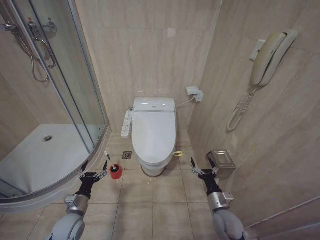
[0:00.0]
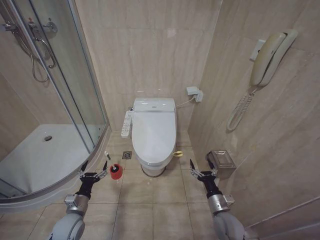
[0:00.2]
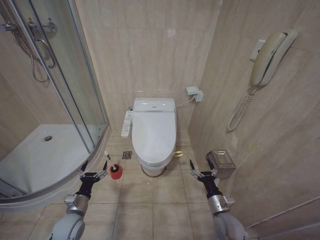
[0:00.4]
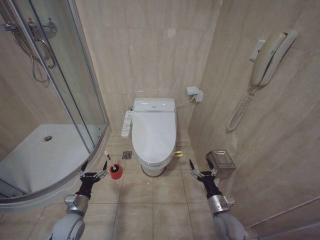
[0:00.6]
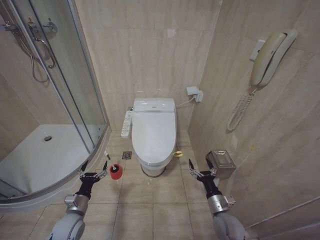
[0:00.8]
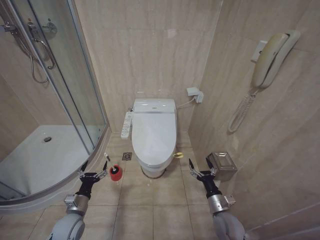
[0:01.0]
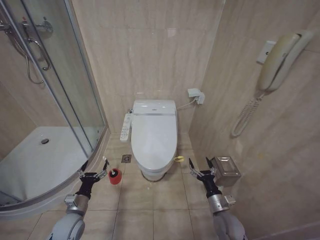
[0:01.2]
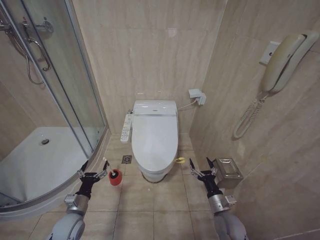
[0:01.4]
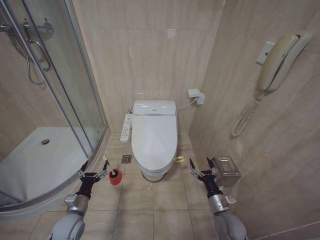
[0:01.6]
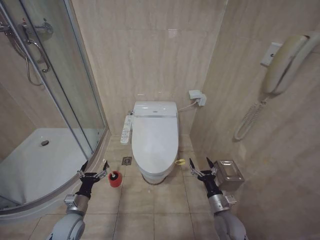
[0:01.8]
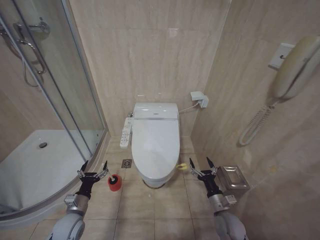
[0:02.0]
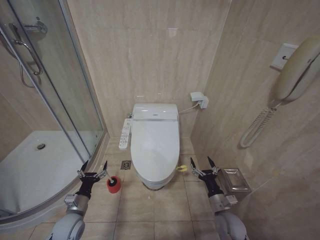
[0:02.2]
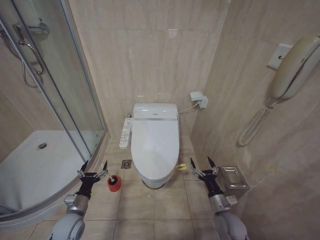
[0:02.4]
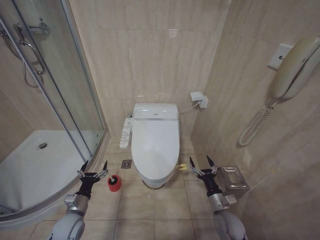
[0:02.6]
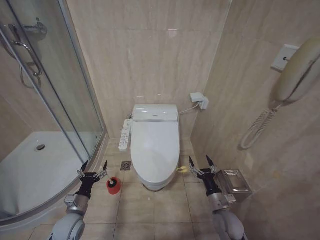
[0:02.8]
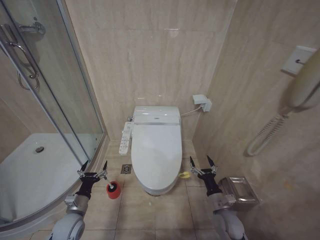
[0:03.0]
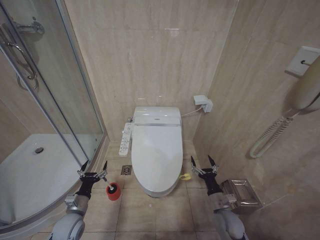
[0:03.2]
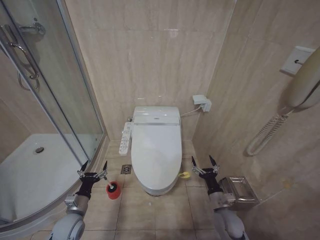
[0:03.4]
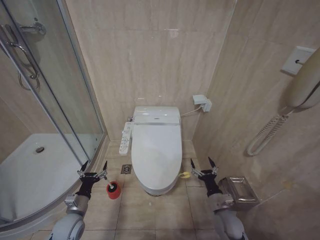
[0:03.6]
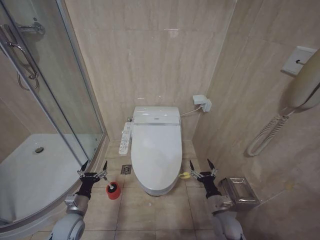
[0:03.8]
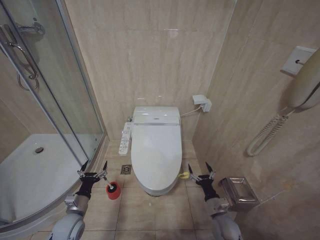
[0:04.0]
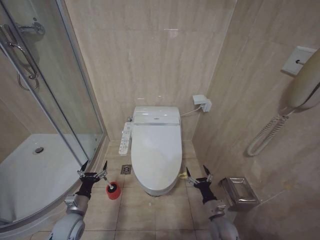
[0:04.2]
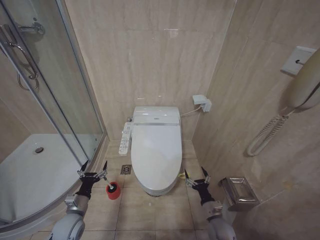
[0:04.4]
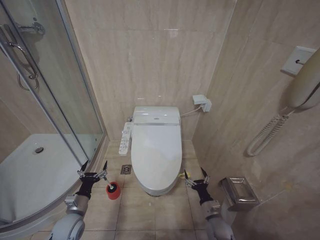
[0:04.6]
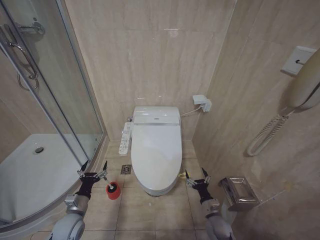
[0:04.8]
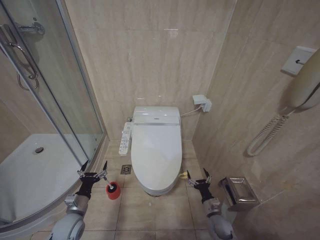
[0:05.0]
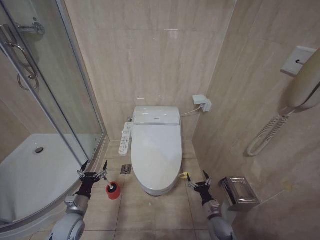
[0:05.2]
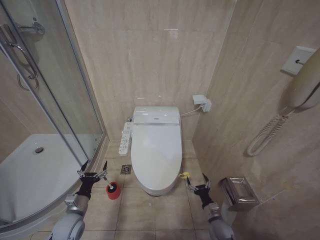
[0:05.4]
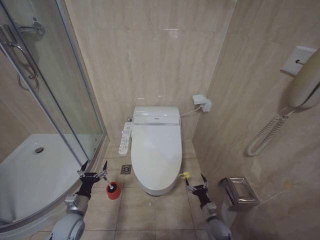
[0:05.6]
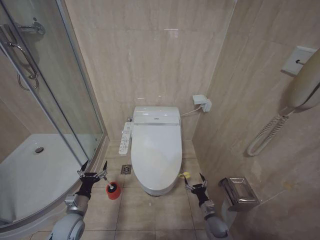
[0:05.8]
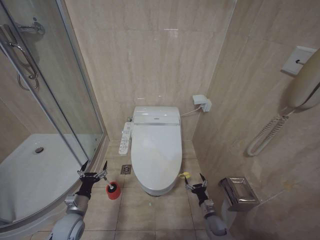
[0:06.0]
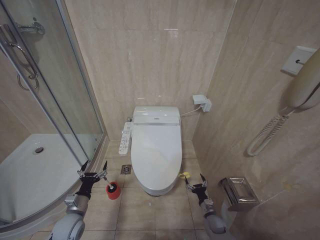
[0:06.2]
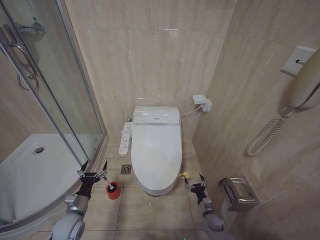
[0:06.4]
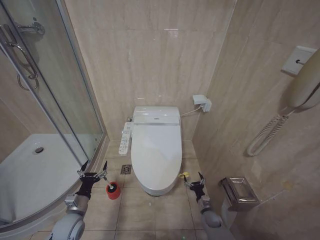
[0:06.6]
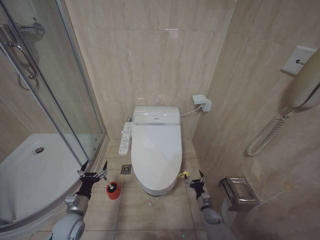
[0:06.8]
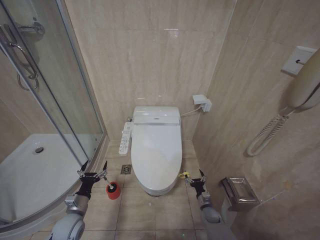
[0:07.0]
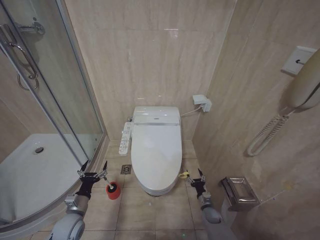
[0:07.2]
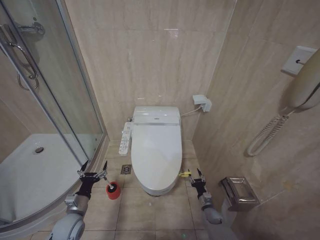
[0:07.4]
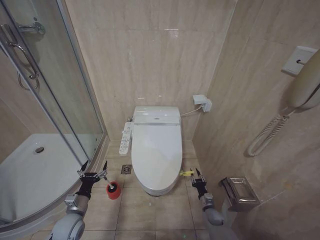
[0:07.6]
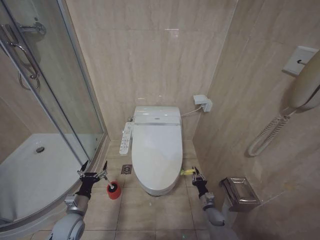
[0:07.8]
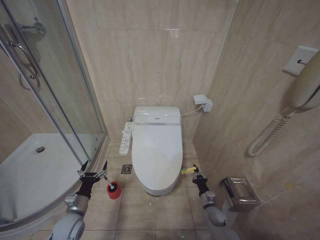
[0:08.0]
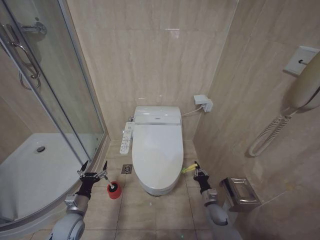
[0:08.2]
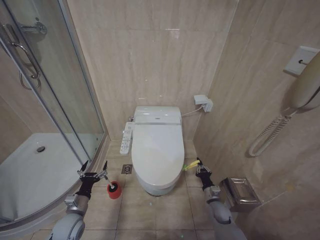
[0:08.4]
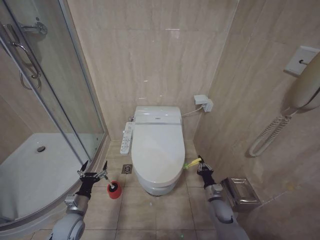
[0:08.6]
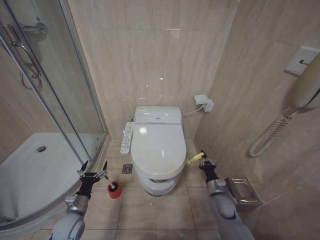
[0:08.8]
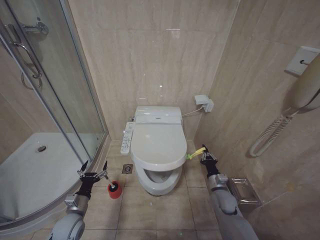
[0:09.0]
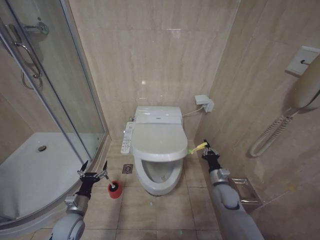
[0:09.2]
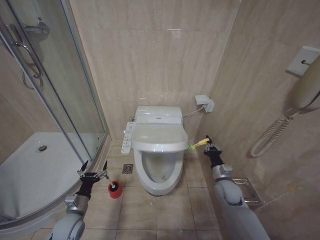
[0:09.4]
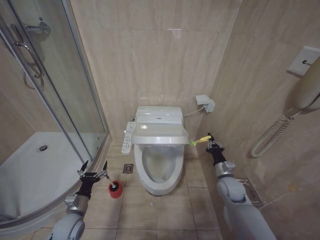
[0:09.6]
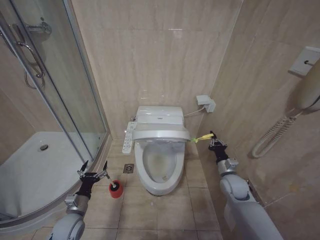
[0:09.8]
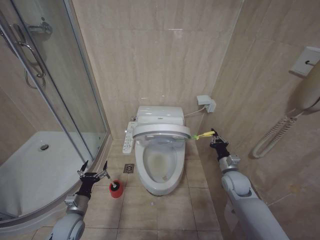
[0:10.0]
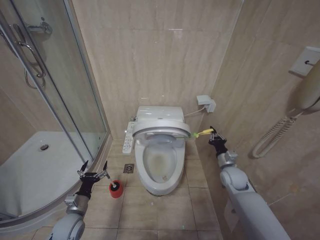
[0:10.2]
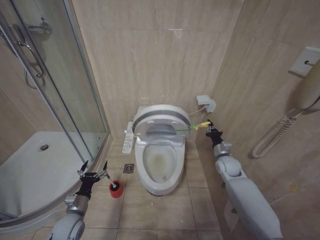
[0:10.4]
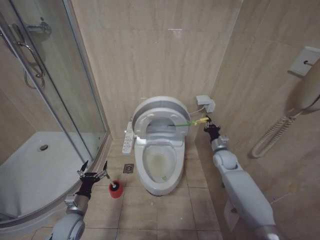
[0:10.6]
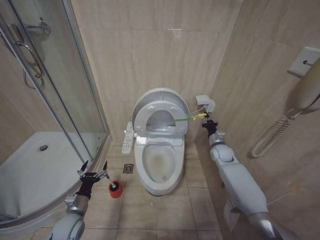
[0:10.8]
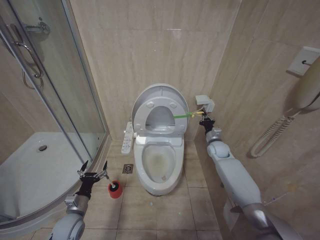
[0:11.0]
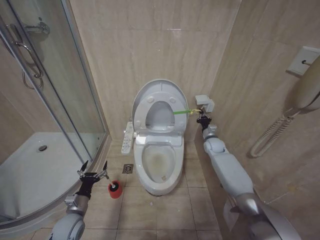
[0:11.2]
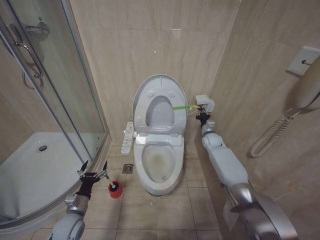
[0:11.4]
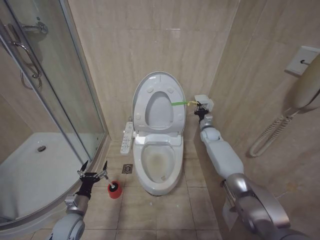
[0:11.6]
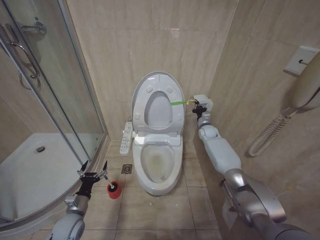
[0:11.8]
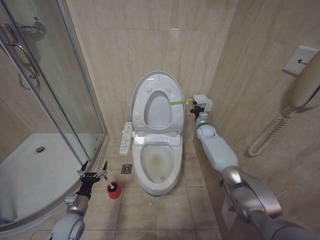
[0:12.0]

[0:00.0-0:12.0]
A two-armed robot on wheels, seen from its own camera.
Task of the whole recording: Open the toilet lid, clean the toilet bowl with a toilet brush, close the toilet lid, and flush.
0:01.6 to 0:03.0: Both grippers stay about where they are.
0:03.0 to 0:04.4: The right gripper moves downward, roughly 5 cm.
0:04.4 to 0:06.0: The right gripper is displaced downward by approximately 10 cm.
0:06.0 to 0:07.6: The right gripper closes up.
0:07.6 to 0:09.0: The right gripper goes approximately 15 cm upward, and closes its fingers.
0:09.0 to 0:10.4: The right gripper is displaced upward and forward by approximately 15 cm.
0:10.4 to 0:12.0: The right gripper heads forward, covering about 20 cm.

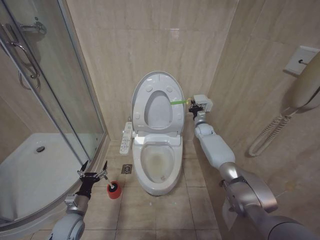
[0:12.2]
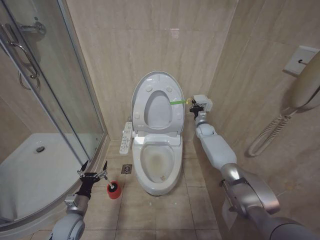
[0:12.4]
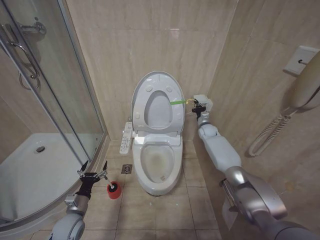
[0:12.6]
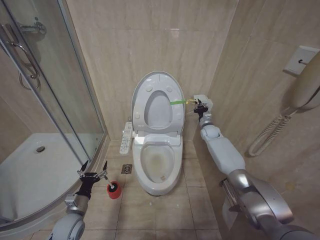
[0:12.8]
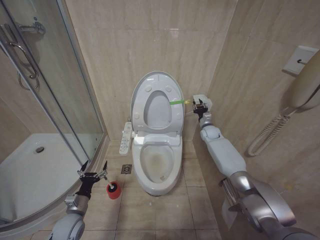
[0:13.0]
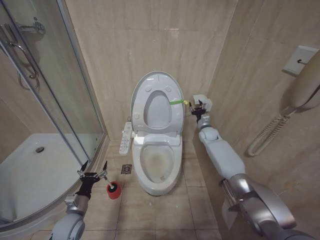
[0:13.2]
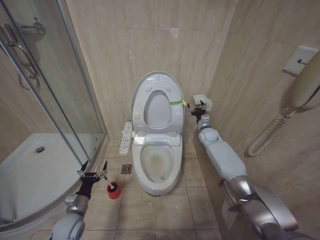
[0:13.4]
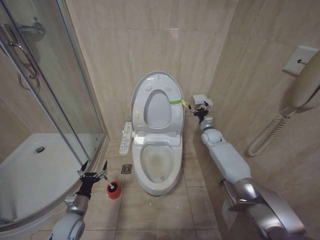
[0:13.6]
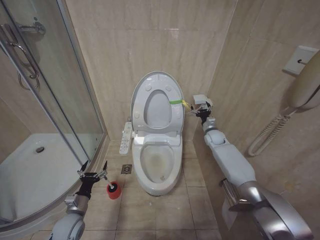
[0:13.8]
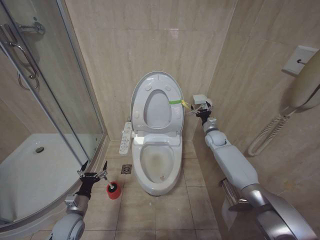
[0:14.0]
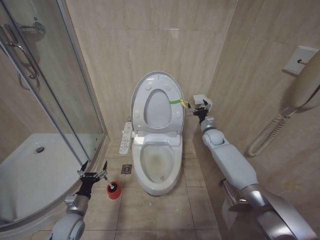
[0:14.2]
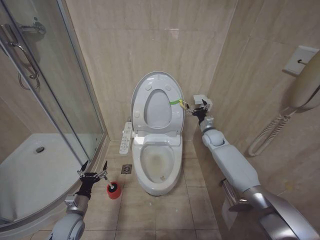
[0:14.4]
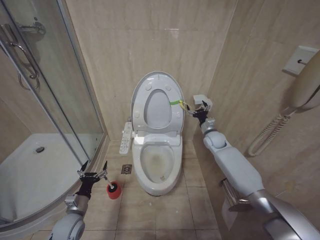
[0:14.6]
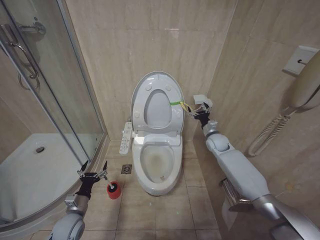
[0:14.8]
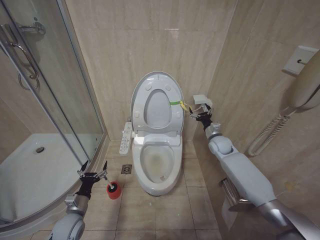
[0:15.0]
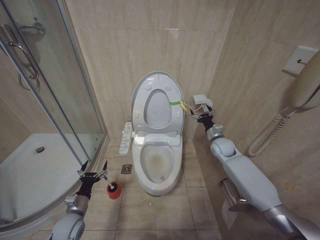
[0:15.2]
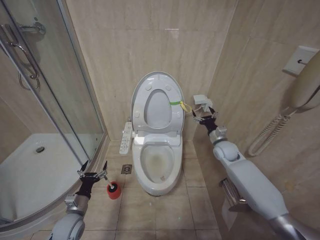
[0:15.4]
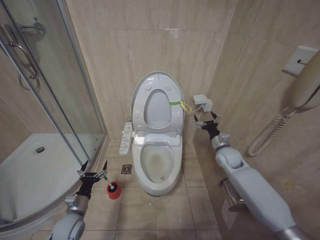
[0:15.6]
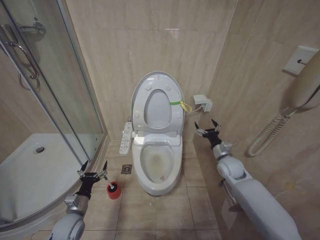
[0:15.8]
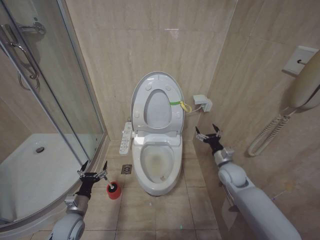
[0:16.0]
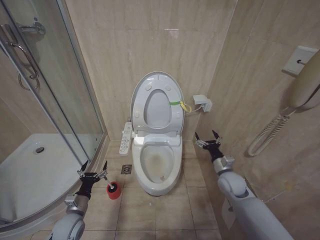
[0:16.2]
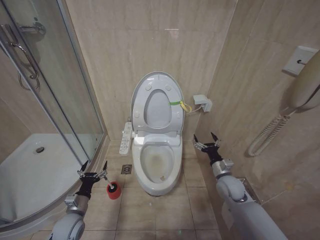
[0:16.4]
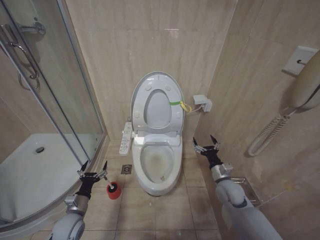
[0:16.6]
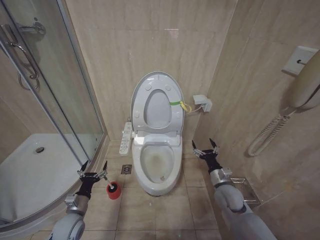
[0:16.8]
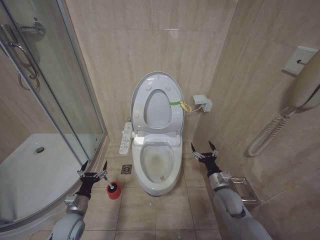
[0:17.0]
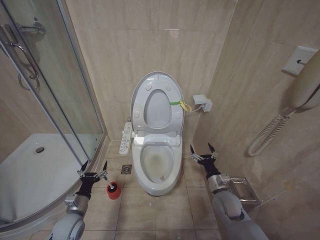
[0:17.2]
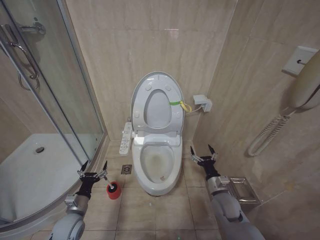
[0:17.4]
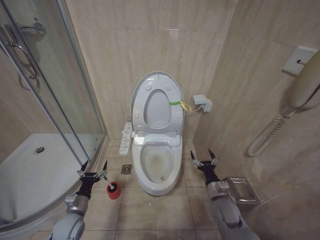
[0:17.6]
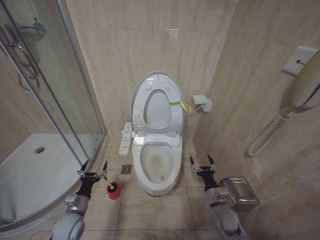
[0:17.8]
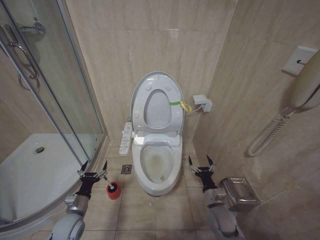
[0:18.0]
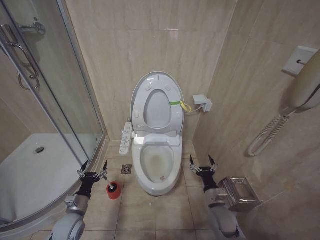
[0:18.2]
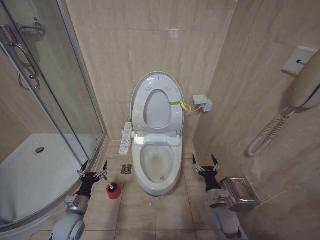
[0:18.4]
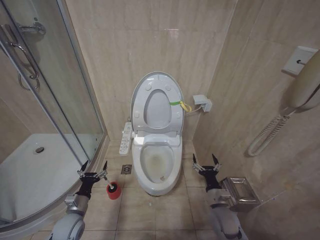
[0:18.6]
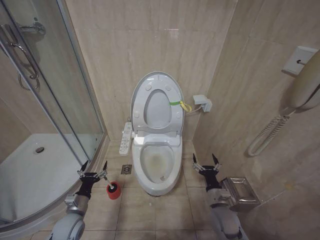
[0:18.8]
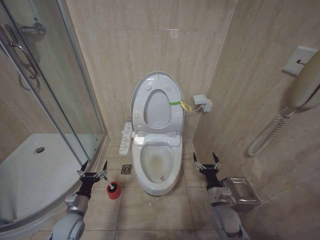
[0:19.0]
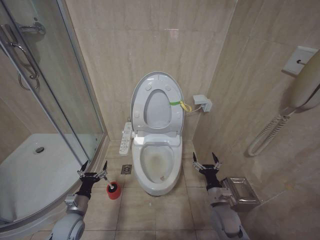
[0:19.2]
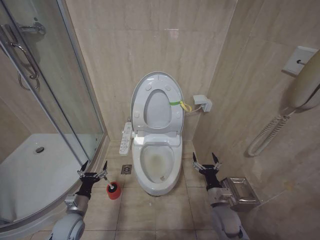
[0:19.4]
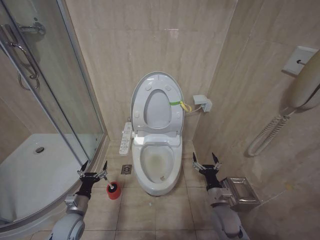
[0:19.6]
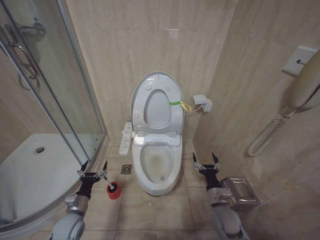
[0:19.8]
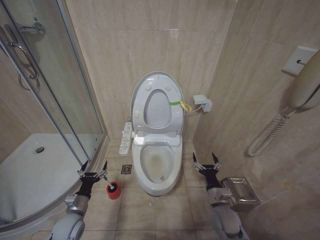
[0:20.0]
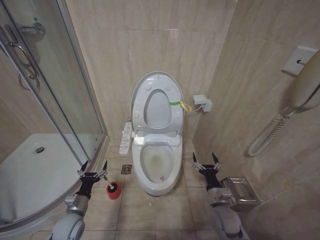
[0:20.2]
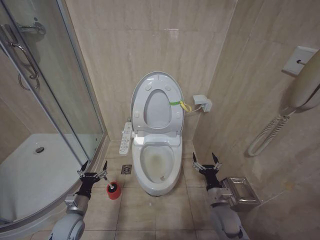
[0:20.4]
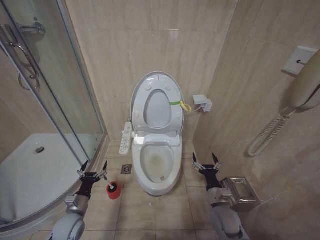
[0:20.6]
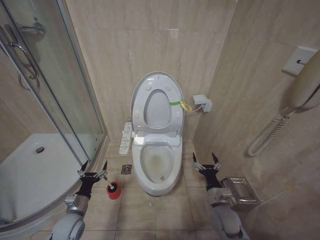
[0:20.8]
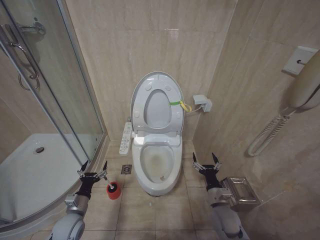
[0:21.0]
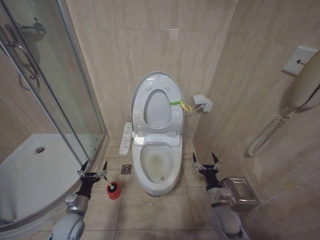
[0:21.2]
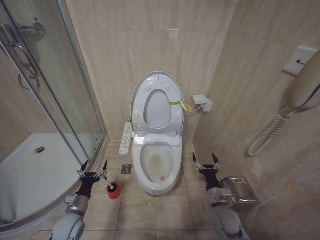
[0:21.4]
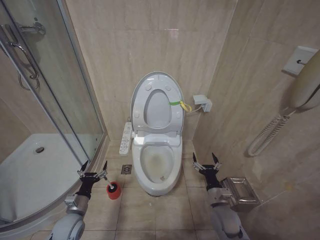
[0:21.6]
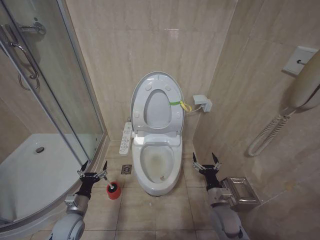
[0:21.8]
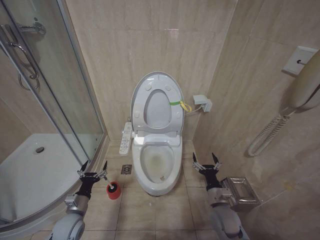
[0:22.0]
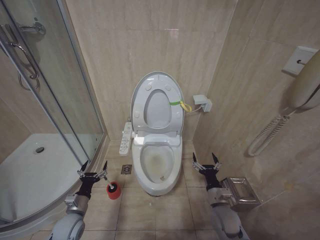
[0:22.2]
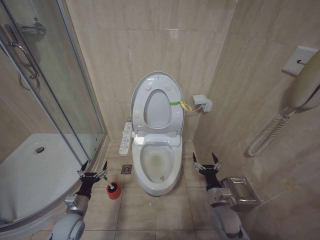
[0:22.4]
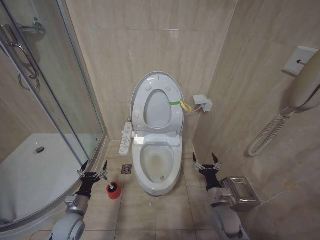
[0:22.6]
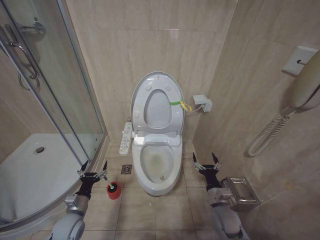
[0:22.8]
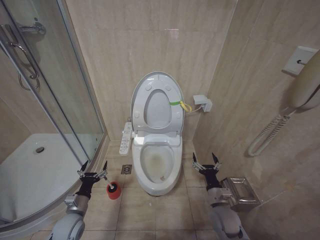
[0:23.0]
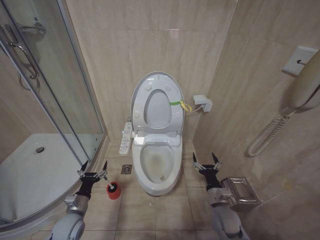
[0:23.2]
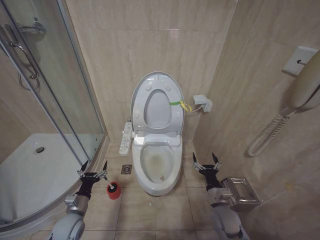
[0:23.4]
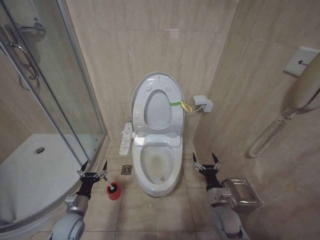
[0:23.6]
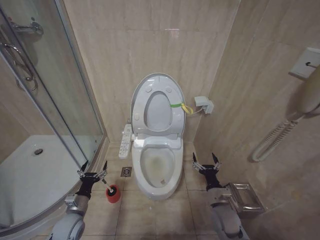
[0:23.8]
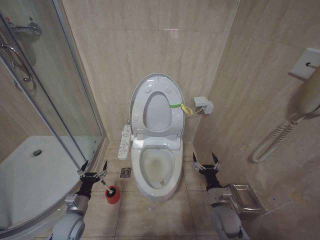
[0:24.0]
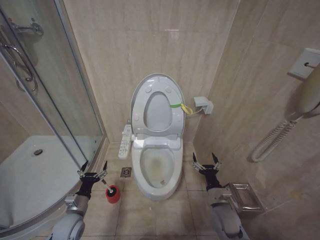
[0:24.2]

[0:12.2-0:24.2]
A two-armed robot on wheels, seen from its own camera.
Task of the whole recording: Open the toilet lid, clean the toilet bowl with a toilet brush, close the toilet lid, and flush.
0:12.2 to 0:13.8: The right gripper heads backward, covering some 5 cm, and opens up.
0:13.8 to 0:15.2: The right gripper moves backward, about 10 cm.
0:15.2 to 0:16.6: The right gripper goes approximately 20 cm backward and downward.
0:16.6 to 0:18.2: The right gripper is displaced downward and backward by approximately 10 cm.
0:19.8 to 0:24.2: Both grippers stay put.
